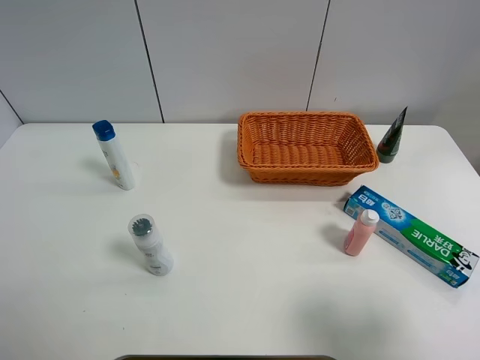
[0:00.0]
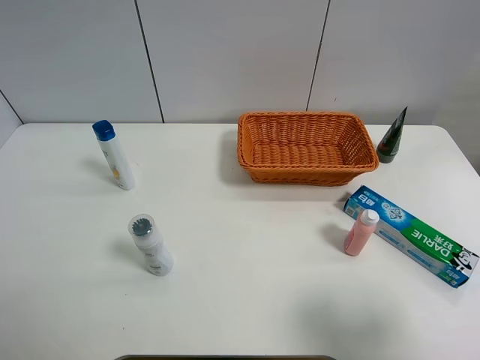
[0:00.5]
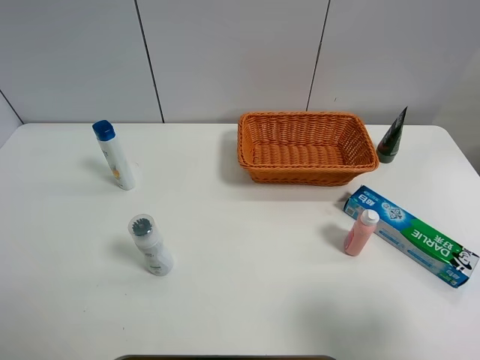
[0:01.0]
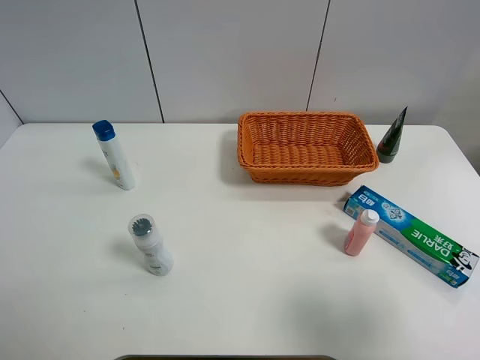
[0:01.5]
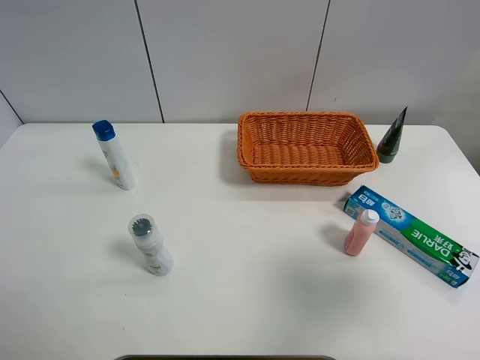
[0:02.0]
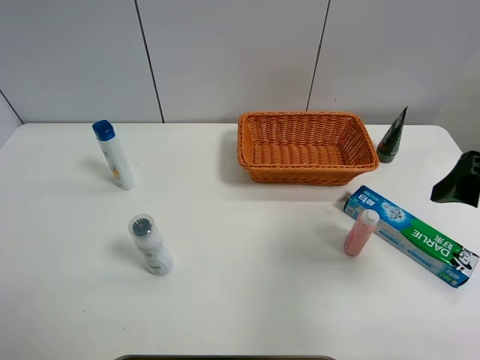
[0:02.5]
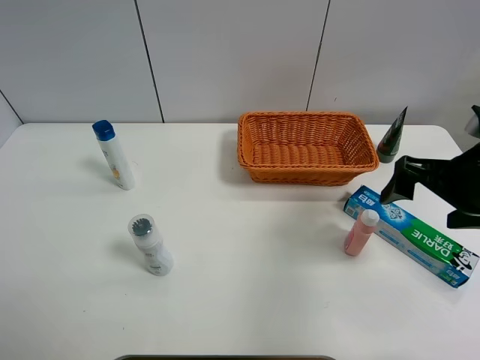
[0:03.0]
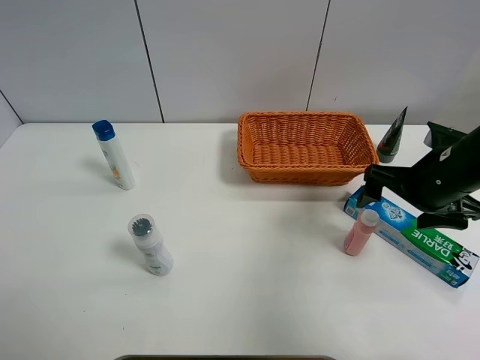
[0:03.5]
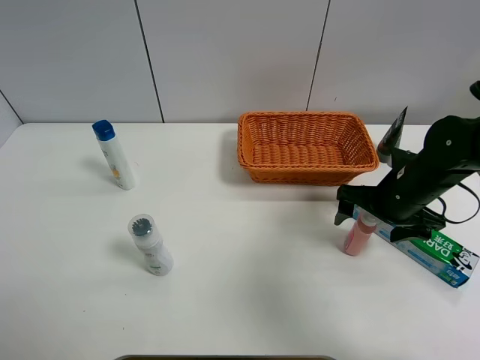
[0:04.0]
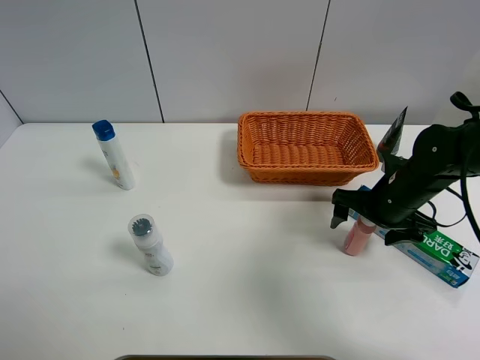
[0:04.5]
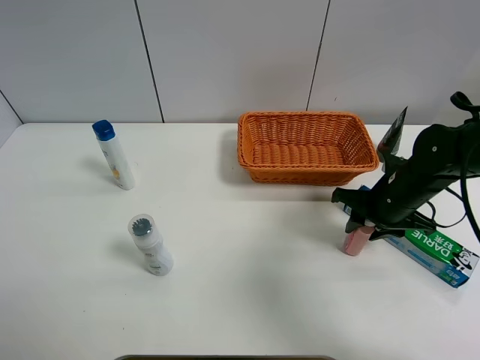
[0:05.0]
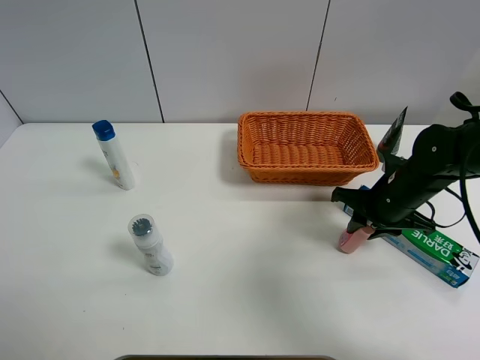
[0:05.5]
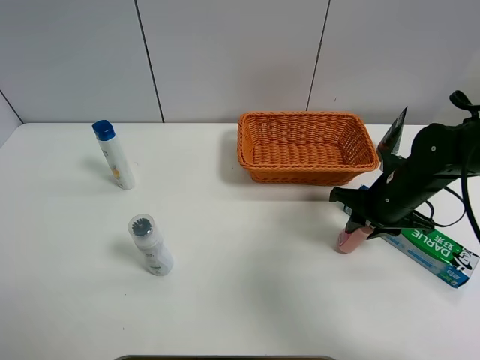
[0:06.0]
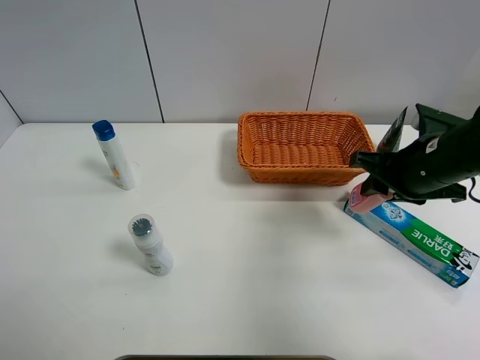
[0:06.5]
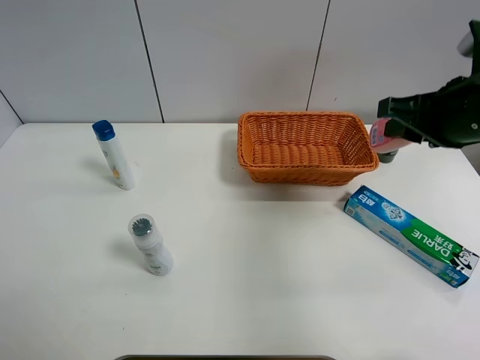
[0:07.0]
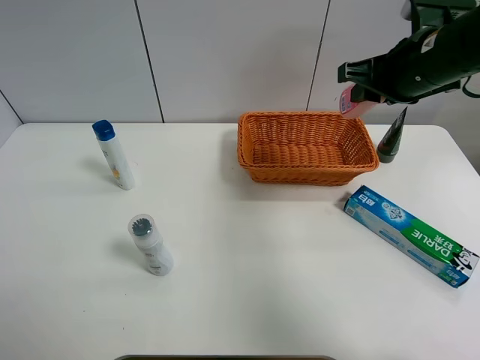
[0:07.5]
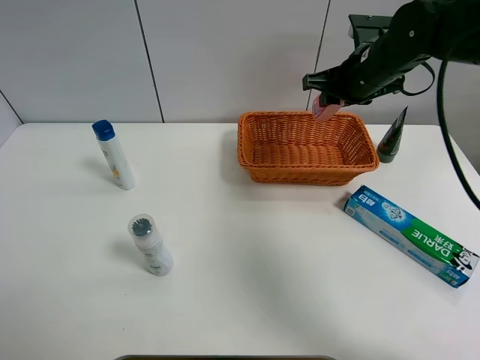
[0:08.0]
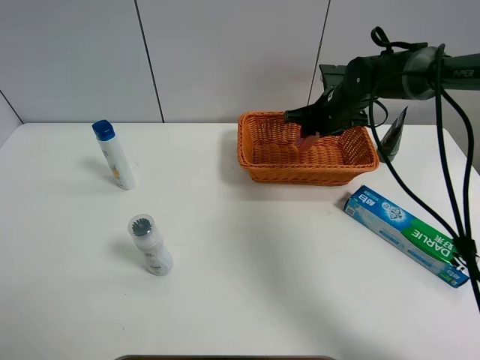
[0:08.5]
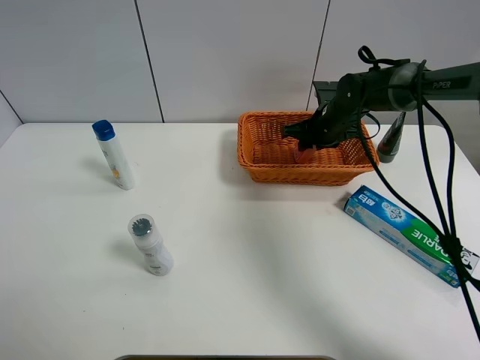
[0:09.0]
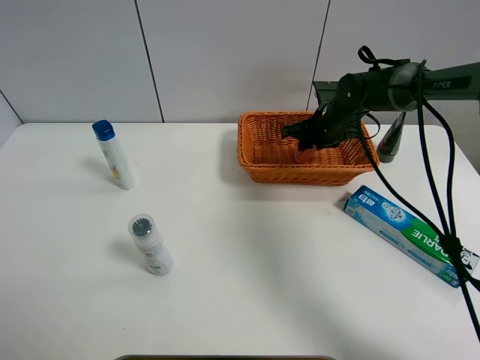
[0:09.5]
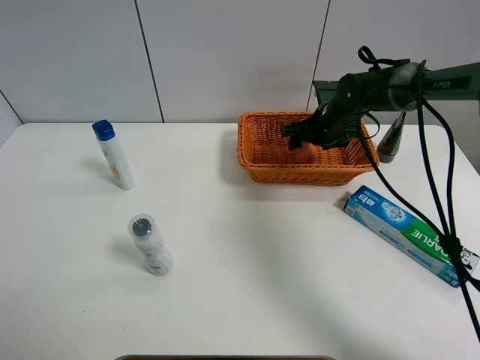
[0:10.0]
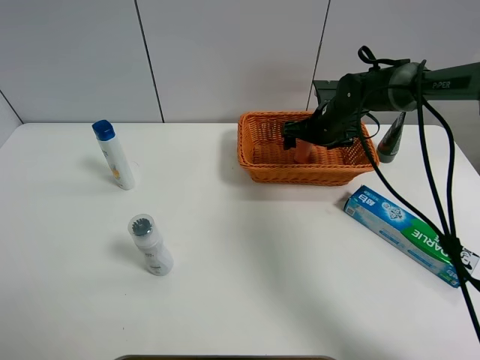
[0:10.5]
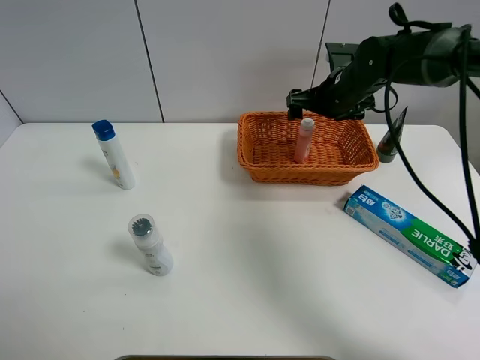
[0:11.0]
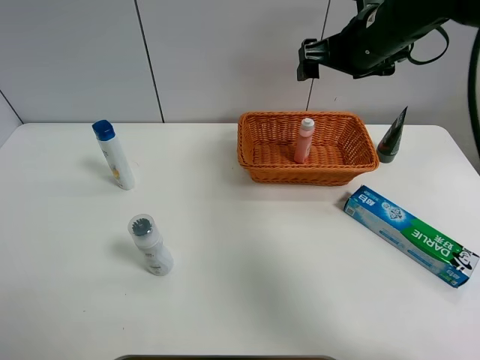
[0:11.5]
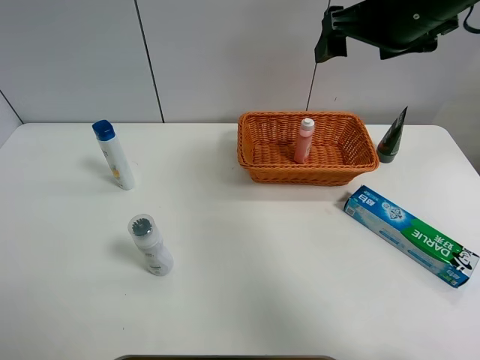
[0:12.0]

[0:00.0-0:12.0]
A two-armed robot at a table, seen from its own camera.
Task of the whole recording: Place the object closest to the toothpaste in the basket.
Step, 0:00.0 to 0:05.0: Grasp the pink laundry detergent with right gripper.
Step, 0:05.5 to 0:11.0: Place the pink laundry detergent in the basket with right gripper.
0:00.0 to 0:02.0: The right gripper heads forward and upward, covering about 10 cm.
0:02.0 to 0:04.0: The right gripper is displaced forward and downward by approximately 25 cm.
0:04.0 to 0:06.0: The right gripper closes its fingers.
0:06.0 to 0:08.0: The right gripper heads forward and upward, covering some 15 cm.
0:08.0 to 0:10.0: The right gripper moves downward, roughly 10 cm, and opens its fingers.
0:10.0 to 0:12.0: The right gripper shifts some 25 cm upward and backward.

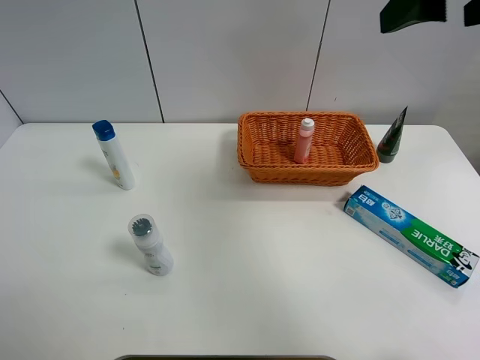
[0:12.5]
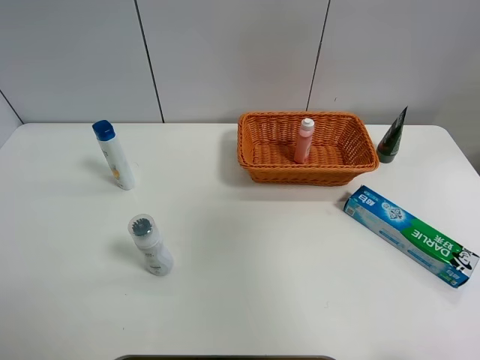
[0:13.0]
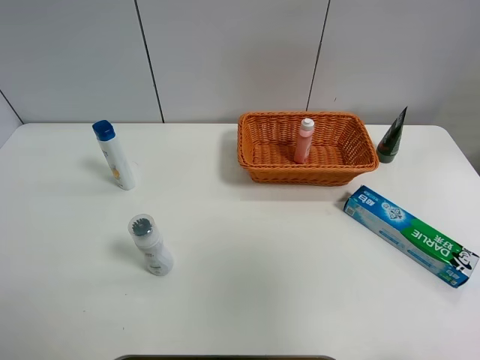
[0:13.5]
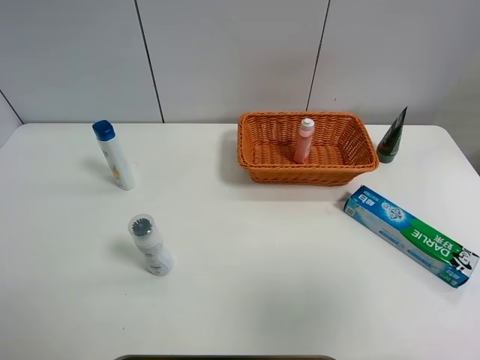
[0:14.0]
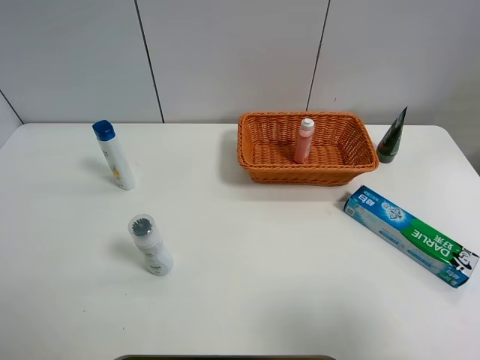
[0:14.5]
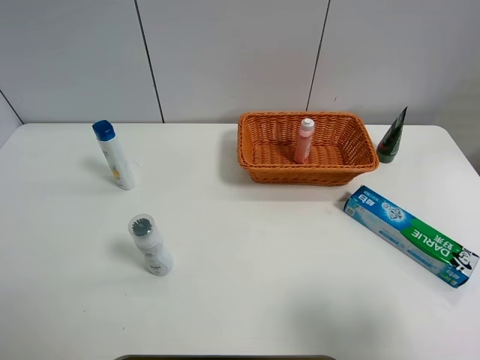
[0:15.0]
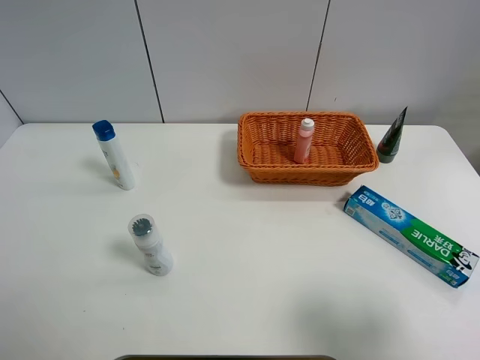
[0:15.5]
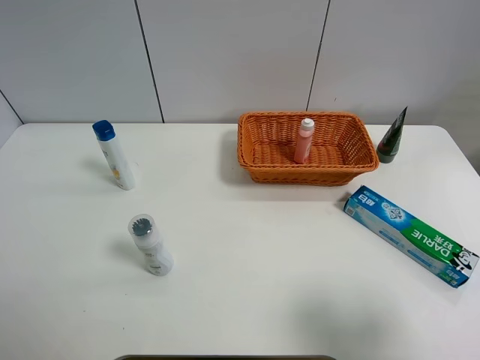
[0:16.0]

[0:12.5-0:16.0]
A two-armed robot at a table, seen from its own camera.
Task of the whole recording: Place the object closest to the toothpaste in the basket.
0:12.5 to 0:14.5: The right gripper is displaced backward and downward by approximately 25 cm.
